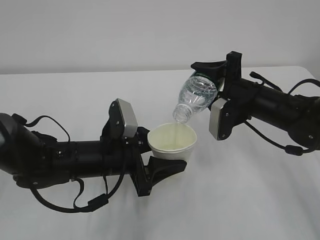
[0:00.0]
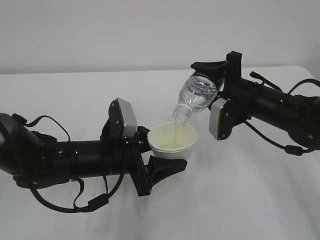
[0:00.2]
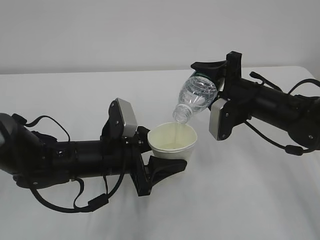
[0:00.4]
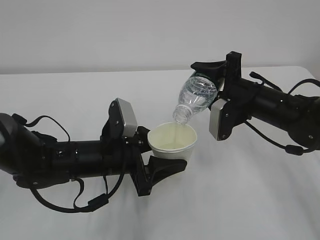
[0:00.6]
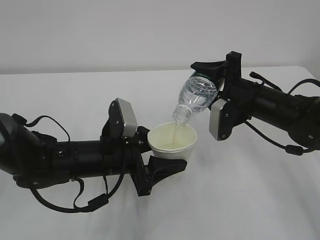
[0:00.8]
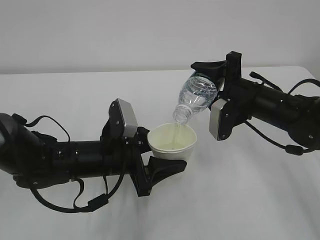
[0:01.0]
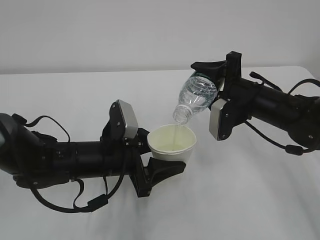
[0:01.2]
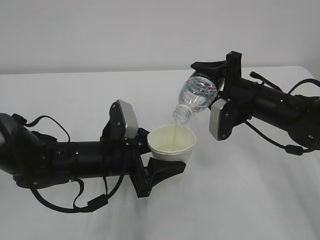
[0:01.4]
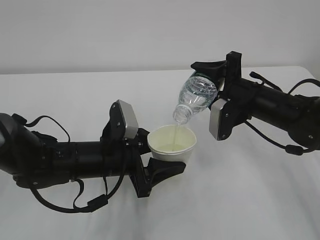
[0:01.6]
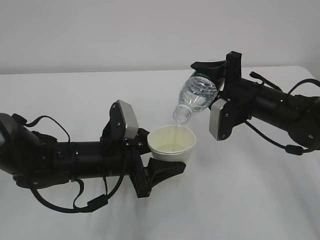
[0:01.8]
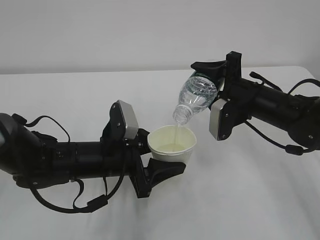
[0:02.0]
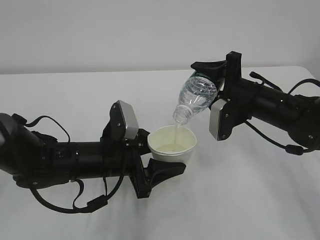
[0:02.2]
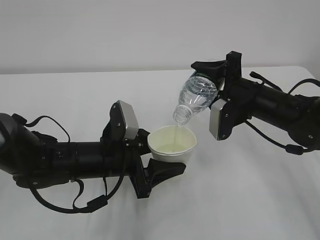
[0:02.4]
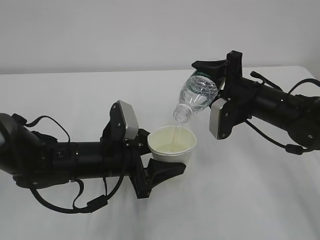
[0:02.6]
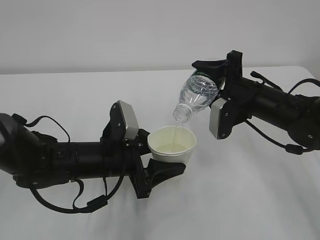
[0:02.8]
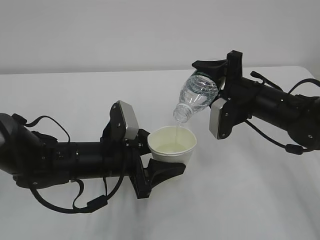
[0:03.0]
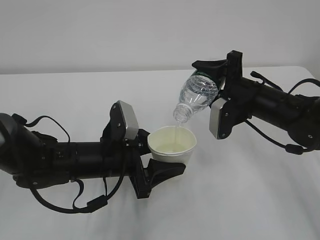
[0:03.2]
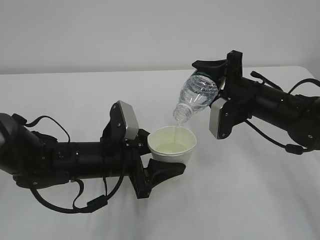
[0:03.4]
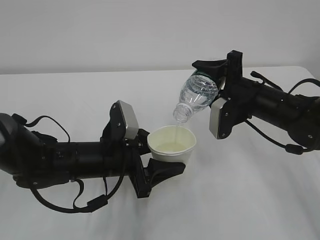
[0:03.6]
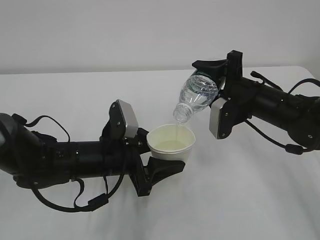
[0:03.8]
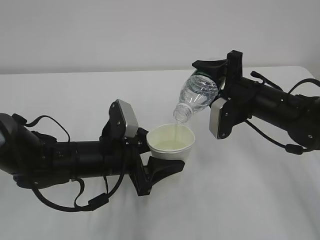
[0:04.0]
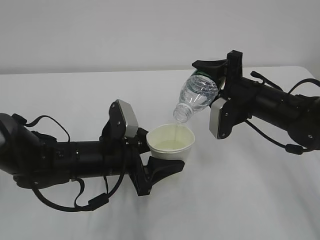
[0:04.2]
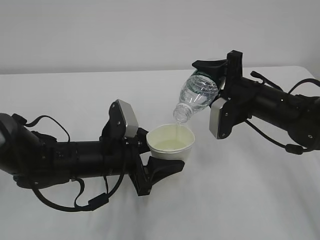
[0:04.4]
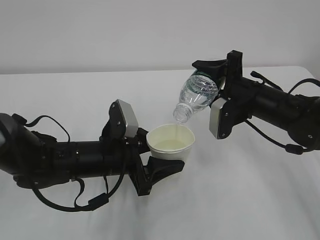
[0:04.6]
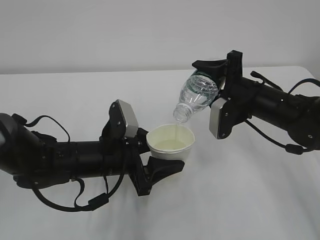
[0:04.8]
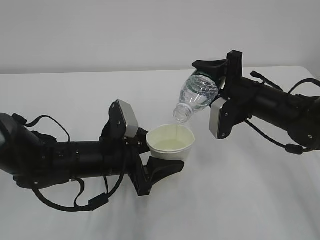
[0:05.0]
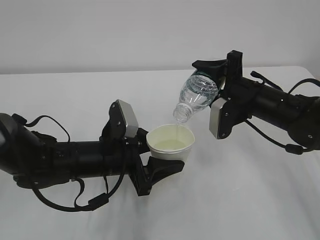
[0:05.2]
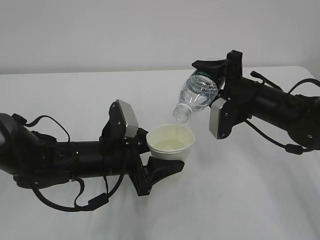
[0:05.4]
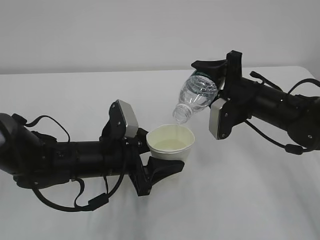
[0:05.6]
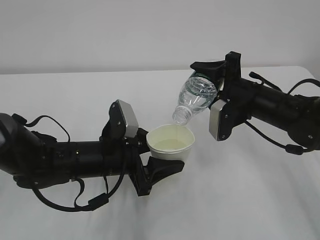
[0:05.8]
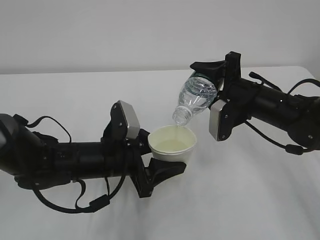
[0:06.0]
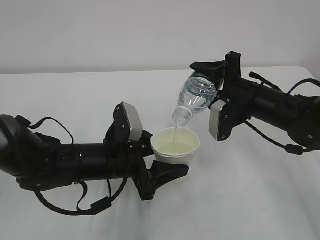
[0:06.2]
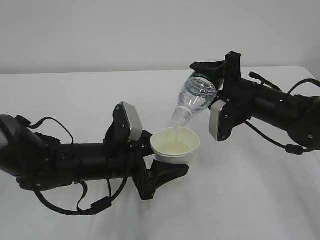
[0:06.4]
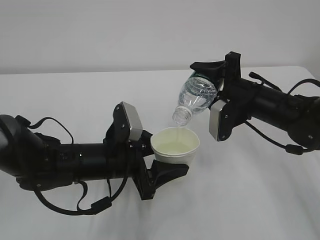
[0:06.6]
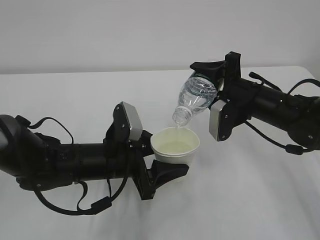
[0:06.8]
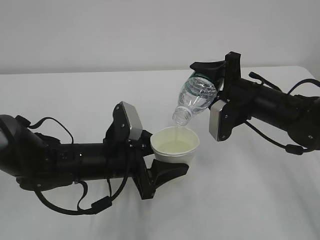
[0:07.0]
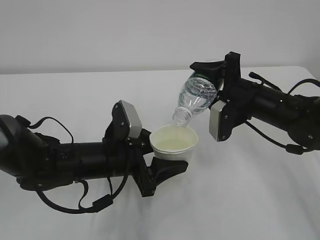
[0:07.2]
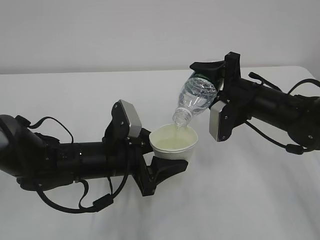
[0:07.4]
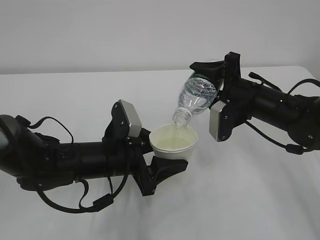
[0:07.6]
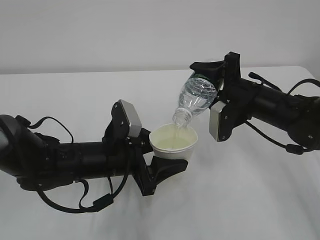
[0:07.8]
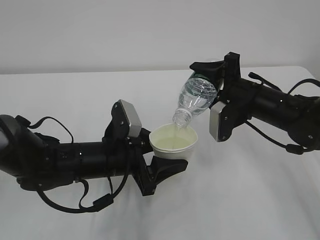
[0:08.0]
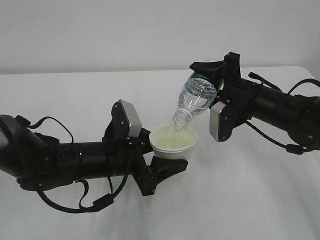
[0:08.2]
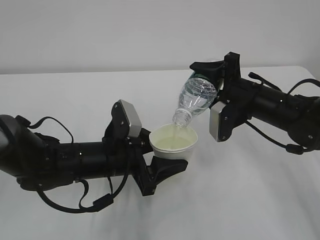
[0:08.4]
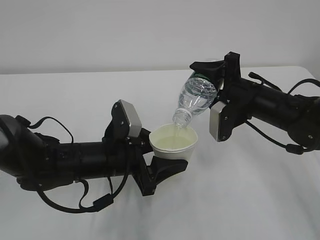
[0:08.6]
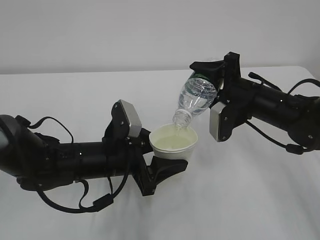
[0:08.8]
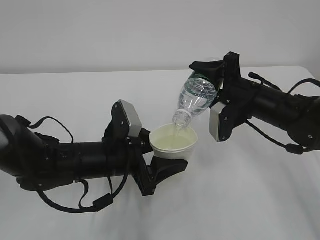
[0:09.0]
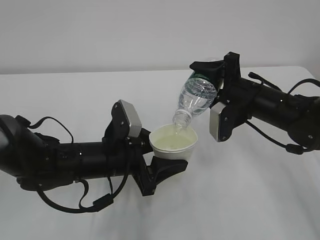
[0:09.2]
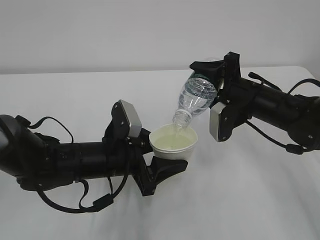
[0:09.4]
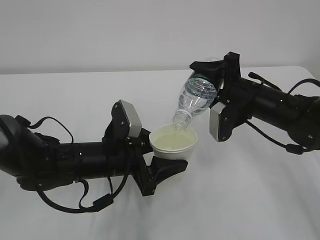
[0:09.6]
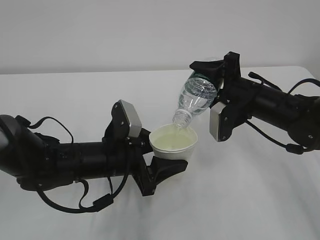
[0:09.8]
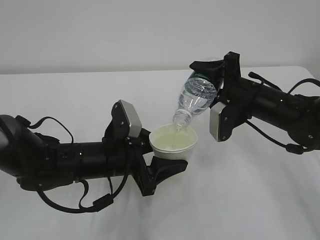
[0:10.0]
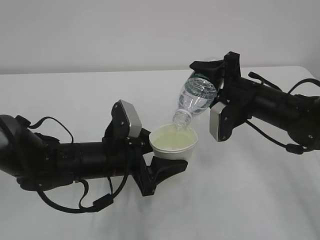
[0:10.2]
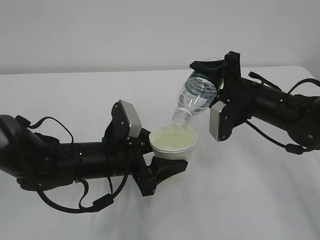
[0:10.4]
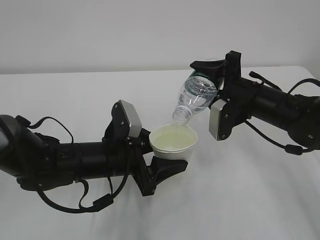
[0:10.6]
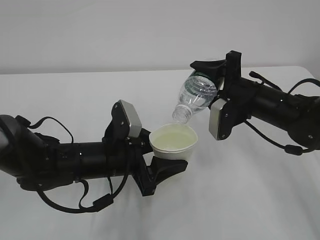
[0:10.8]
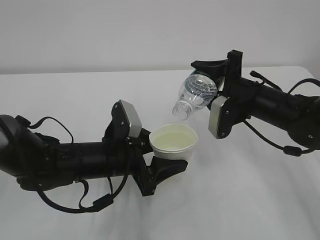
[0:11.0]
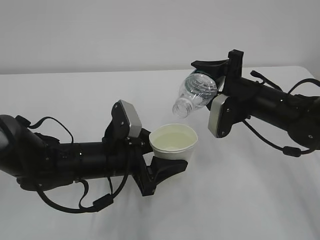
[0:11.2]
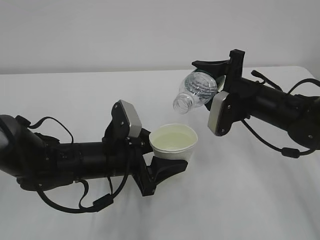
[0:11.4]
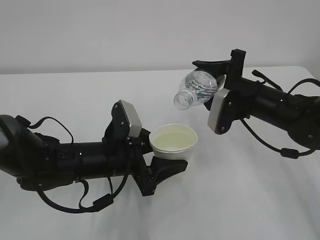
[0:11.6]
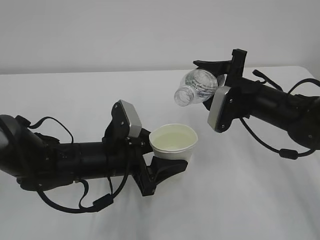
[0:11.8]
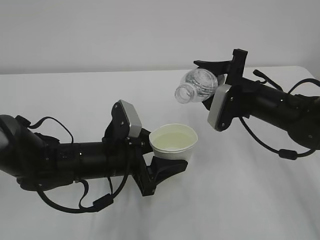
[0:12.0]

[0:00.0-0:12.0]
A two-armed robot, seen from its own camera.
0:00.0 to 0:07.6: Neither gripper changes place.
0:07.6 to 0:10.4: Both grippers stay put.

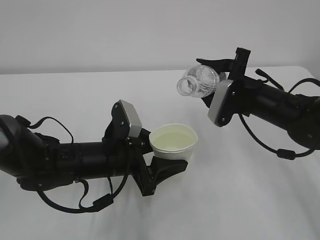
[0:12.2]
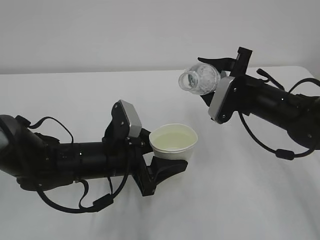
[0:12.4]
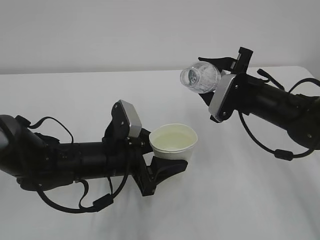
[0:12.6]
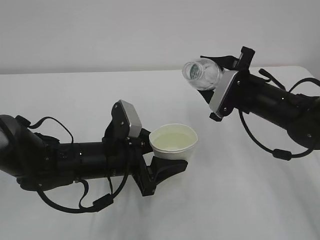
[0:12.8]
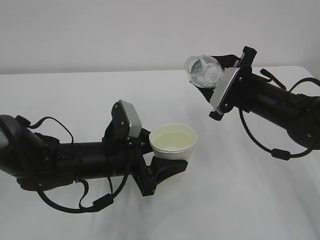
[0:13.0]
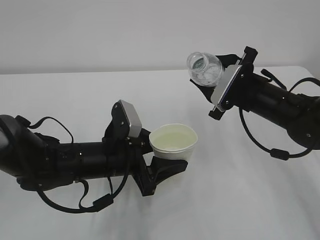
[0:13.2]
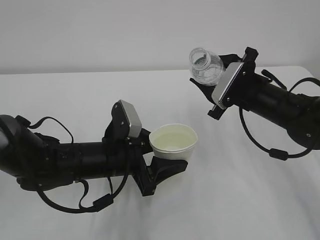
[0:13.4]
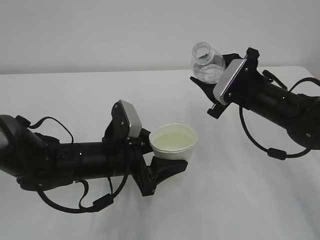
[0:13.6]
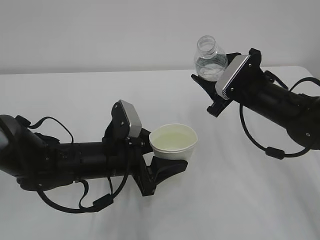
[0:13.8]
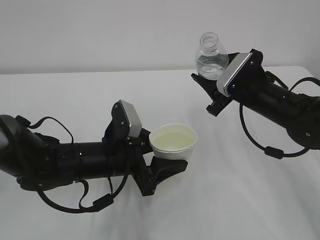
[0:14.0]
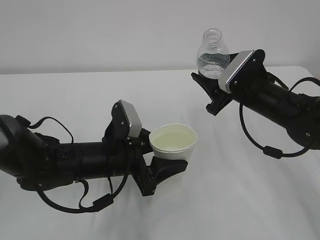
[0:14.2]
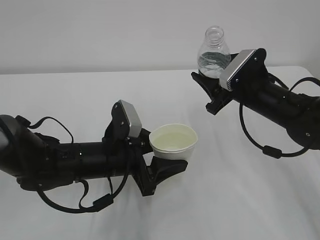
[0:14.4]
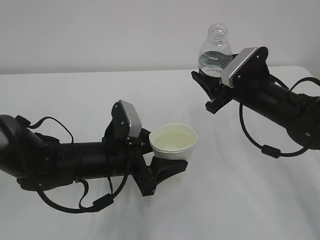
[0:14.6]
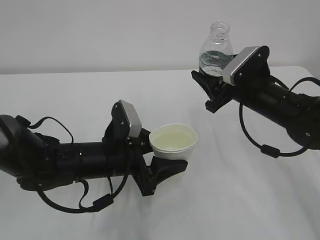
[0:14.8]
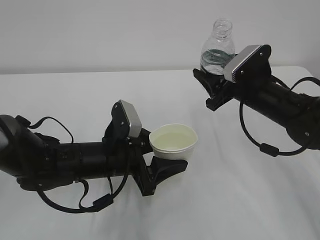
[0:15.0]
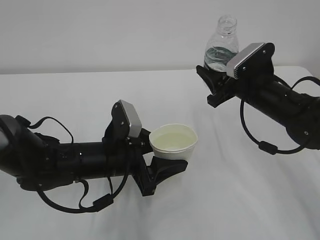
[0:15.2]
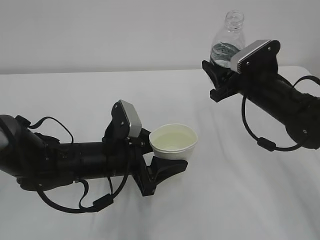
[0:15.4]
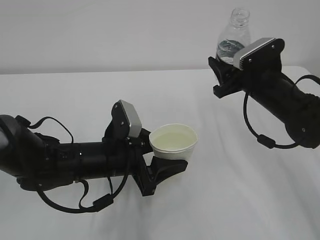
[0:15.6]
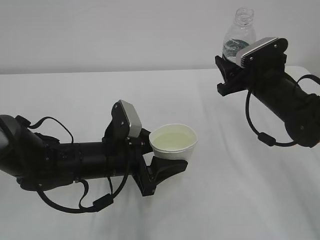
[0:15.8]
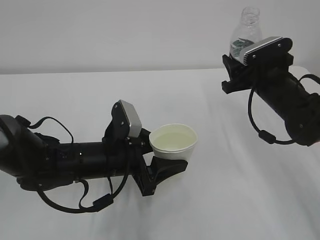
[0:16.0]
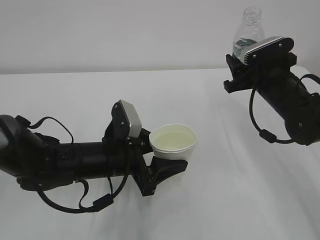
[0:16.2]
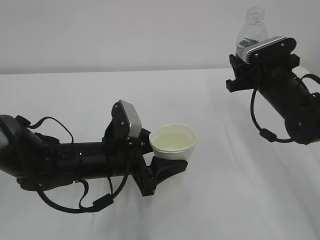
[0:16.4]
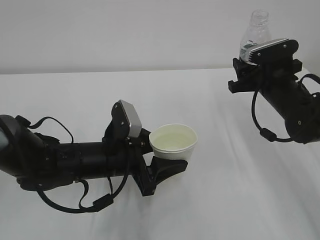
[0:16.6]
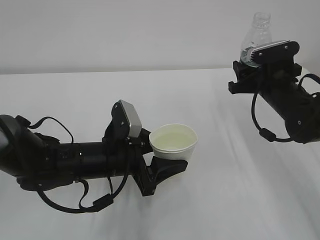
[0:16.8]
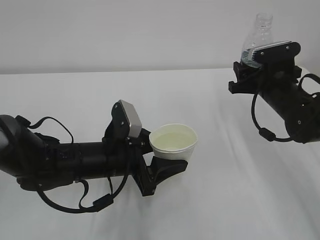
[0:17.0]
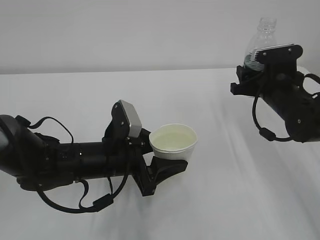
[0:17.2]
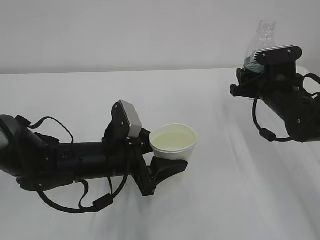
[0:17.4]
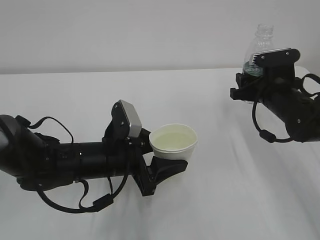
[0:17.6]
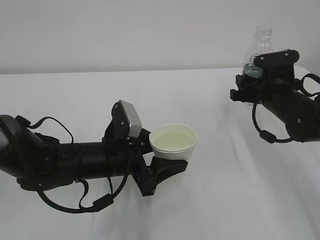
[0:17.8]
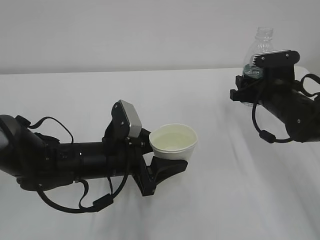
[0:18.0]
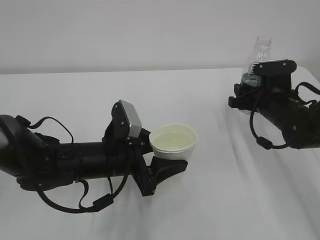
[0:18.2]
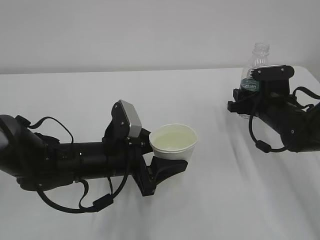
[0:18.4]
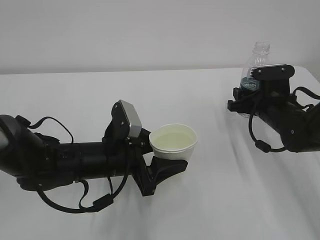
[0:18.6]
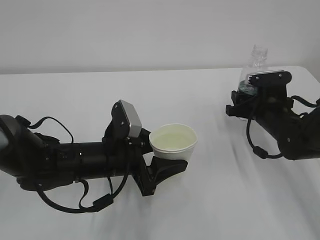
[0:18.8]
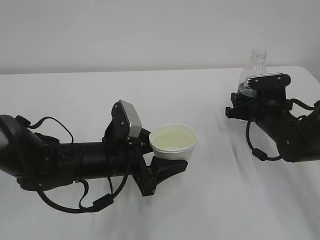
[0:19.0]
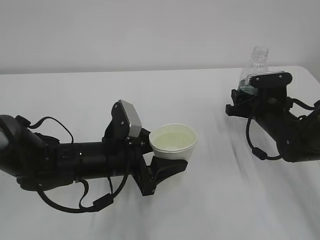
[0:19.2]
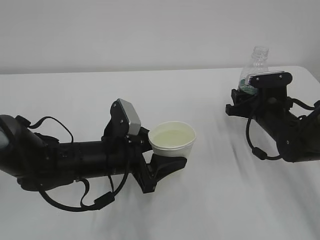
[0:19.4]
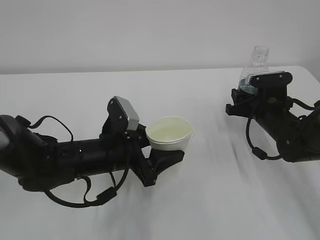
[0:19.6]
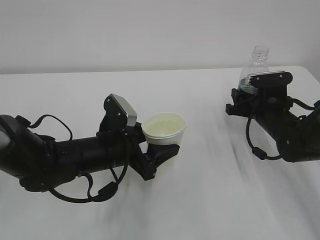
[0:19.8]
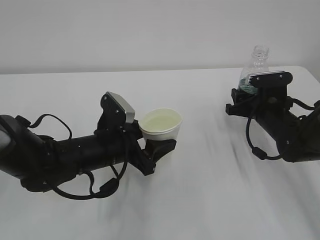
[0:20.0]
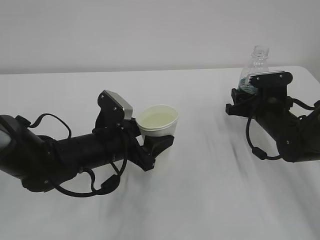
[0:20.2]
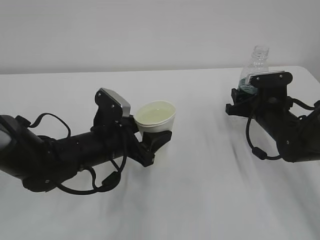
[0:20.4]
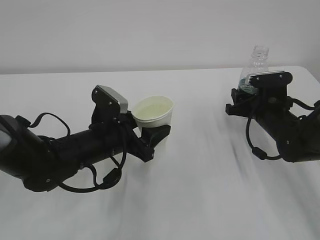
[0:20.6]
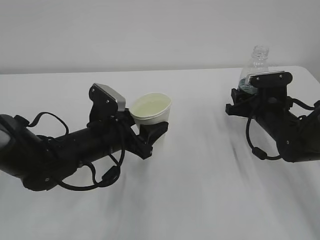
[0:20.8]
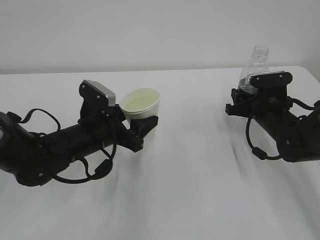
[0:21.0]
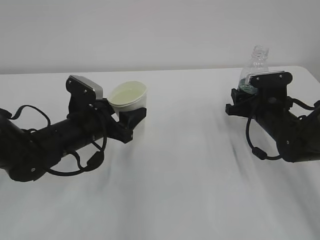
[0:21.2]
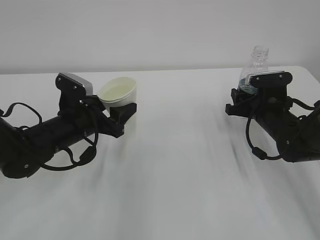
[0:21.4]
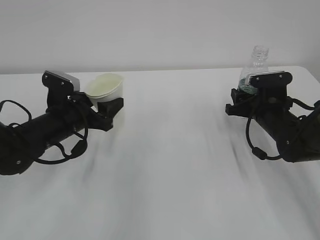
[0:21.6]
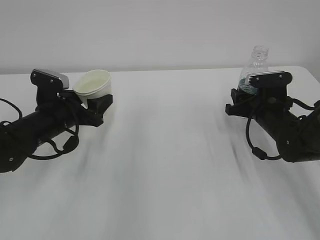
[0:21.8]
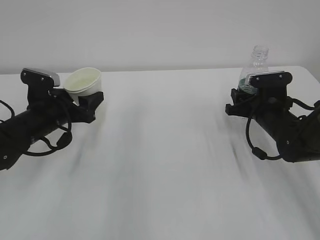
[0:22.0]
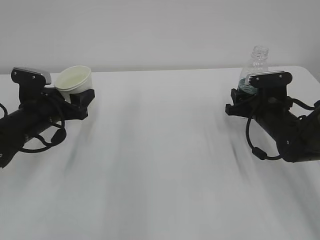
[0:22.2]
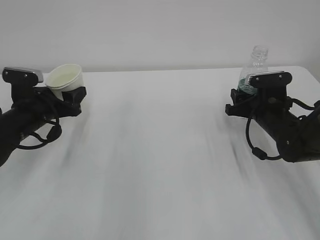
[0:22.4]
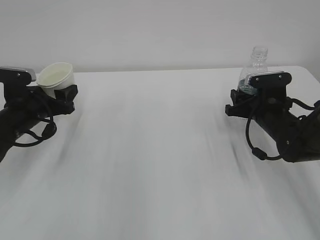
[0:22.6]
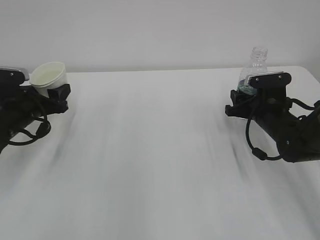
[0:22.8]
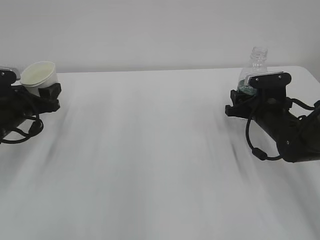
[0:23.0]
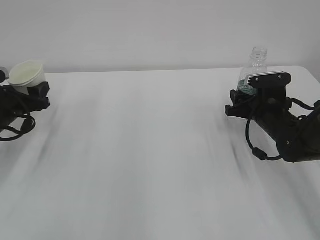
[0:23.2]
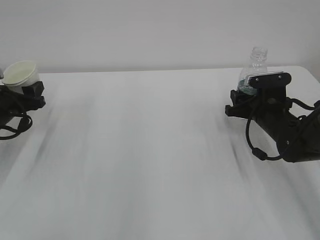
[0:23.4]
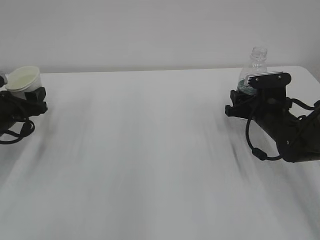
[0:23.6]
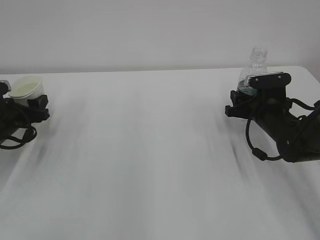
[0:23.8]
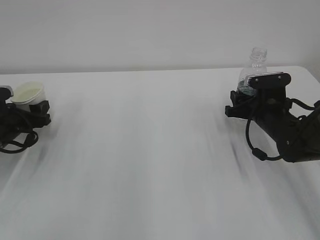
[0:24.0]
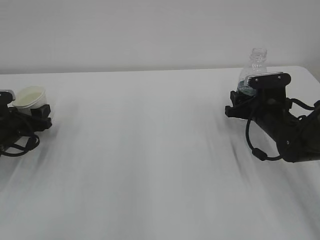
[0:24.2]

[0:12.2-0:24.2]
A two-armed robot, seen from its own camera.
0:13.8 to 0:15.2: The grippers move only a little.
0:16.6 to 0:18.2: The grippers move only a little.
0:18.2 to 0:19.8: The grippers move only a little.
0:19.8 to 0:21.2: The left gripper ends up about 5 cm from where it was.
0:21.2 to 0:22.6: The left gripper shifts approximately 10 cm to the left.
0:22.6 to 0:24.2: The left gripper goes roughly 5 cm to the left.
